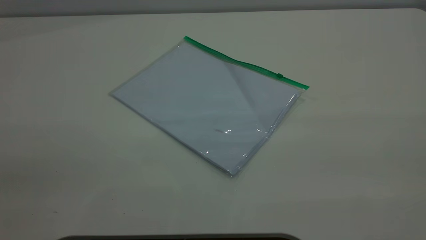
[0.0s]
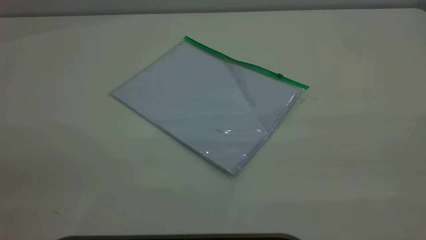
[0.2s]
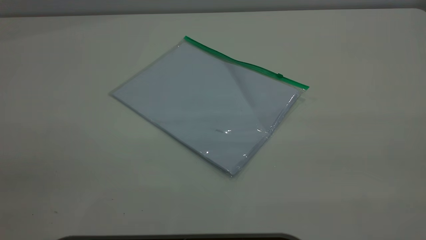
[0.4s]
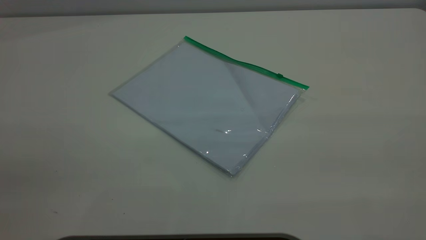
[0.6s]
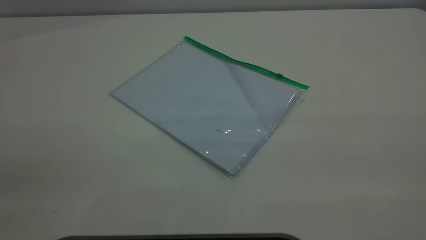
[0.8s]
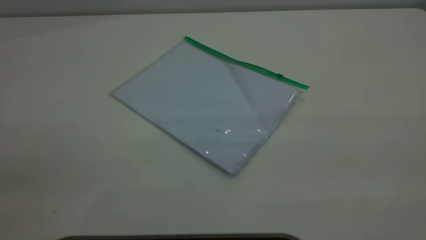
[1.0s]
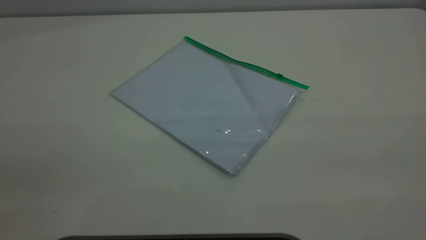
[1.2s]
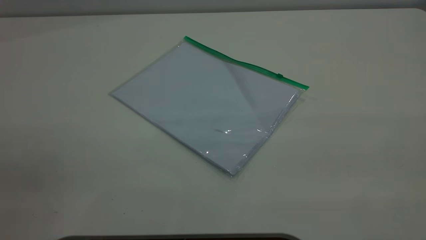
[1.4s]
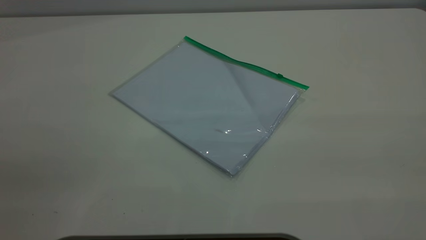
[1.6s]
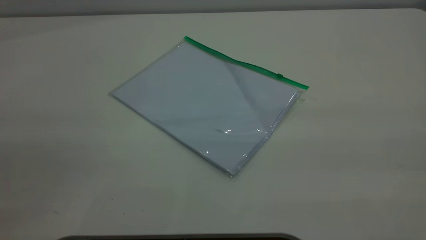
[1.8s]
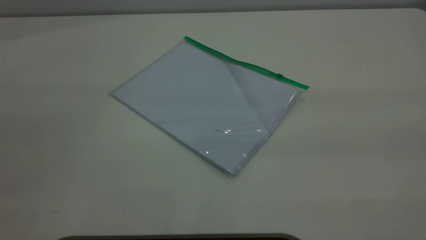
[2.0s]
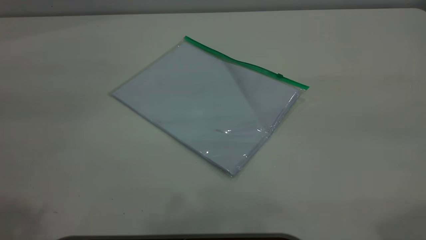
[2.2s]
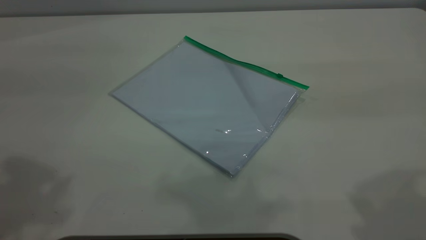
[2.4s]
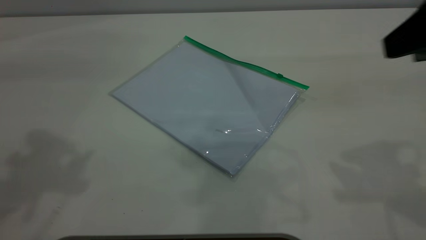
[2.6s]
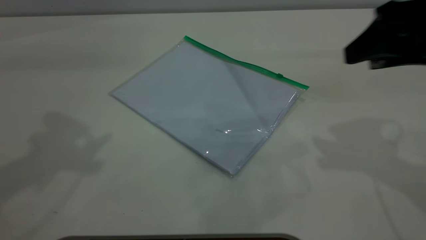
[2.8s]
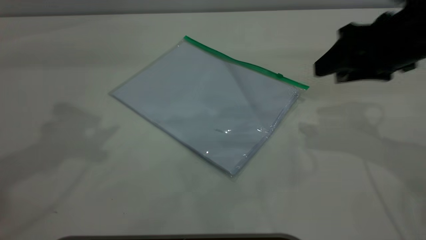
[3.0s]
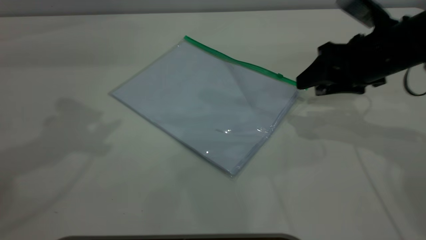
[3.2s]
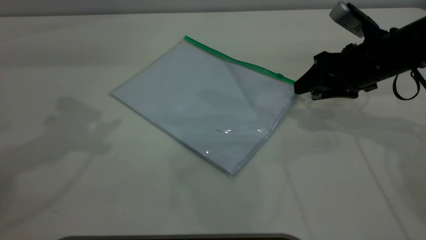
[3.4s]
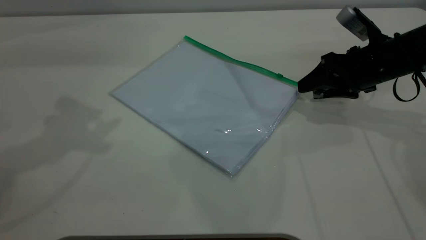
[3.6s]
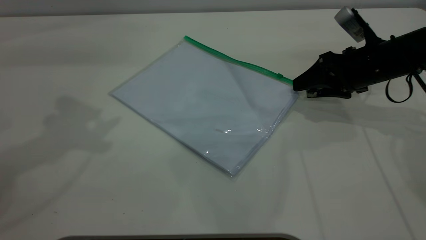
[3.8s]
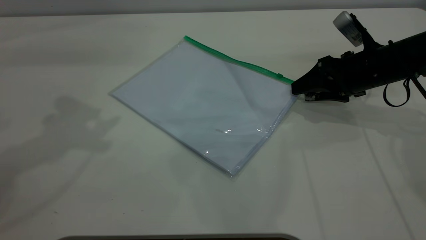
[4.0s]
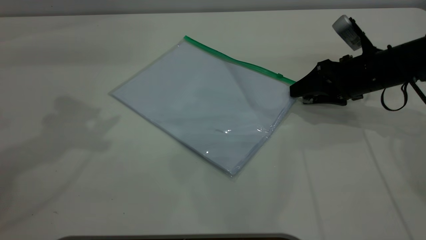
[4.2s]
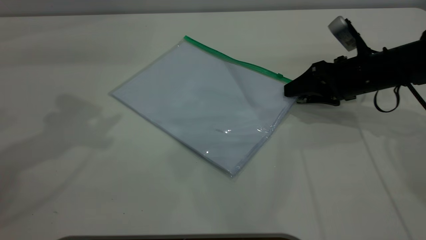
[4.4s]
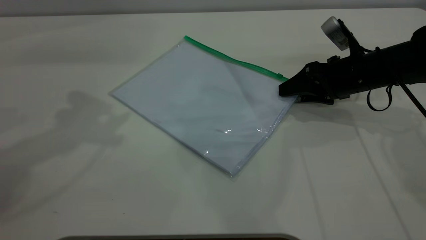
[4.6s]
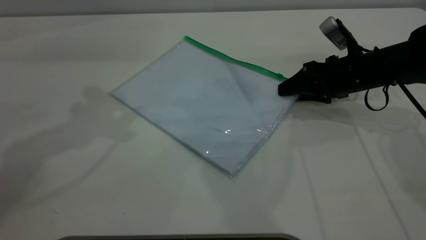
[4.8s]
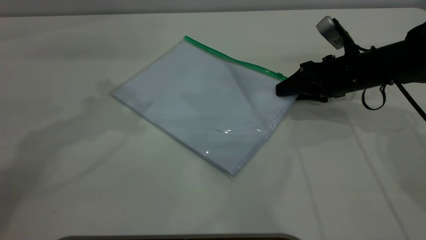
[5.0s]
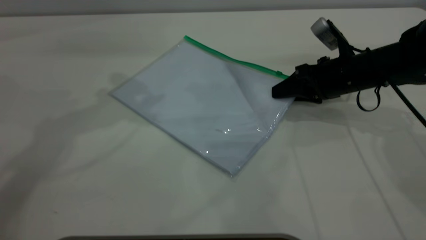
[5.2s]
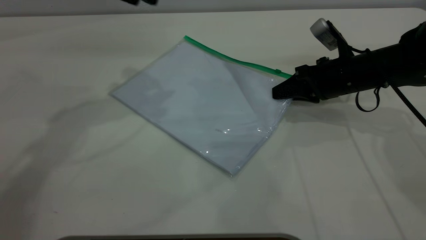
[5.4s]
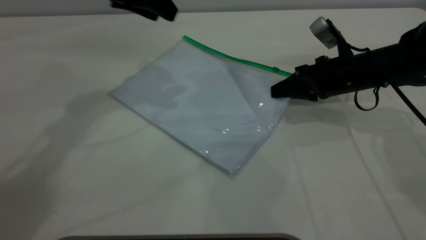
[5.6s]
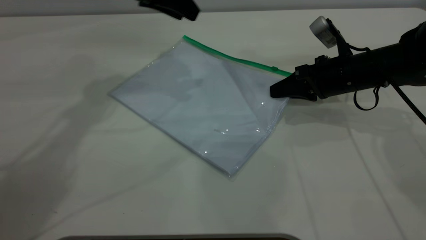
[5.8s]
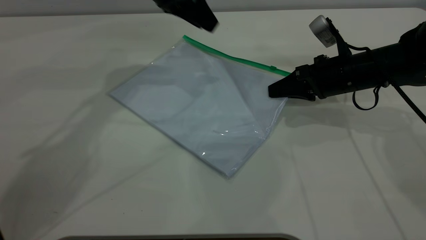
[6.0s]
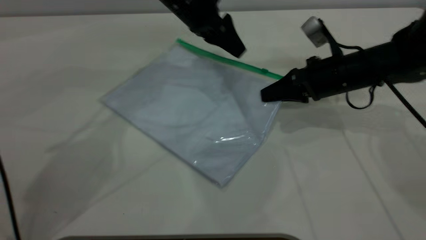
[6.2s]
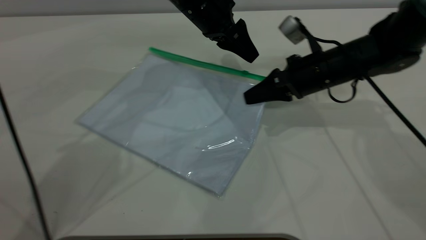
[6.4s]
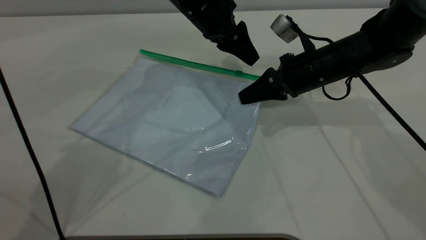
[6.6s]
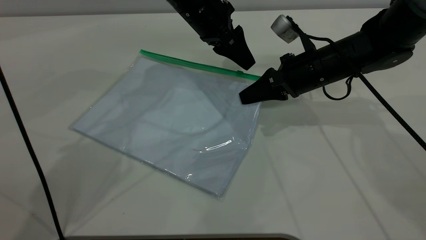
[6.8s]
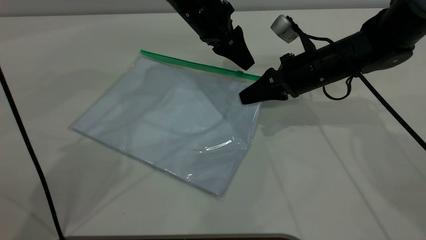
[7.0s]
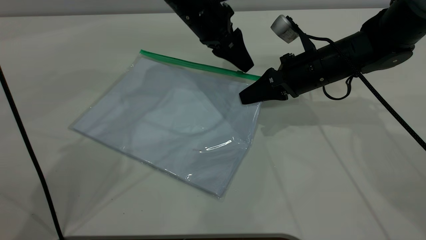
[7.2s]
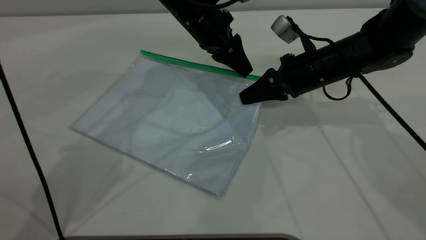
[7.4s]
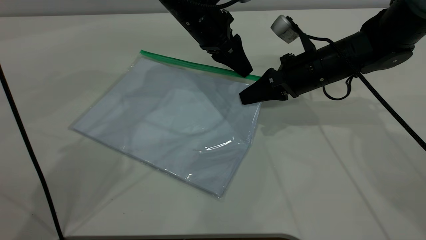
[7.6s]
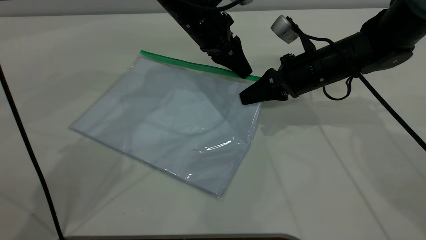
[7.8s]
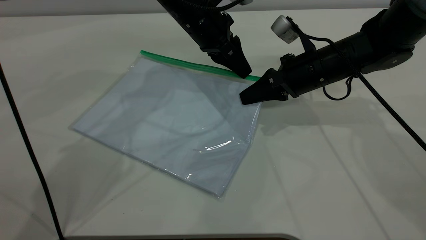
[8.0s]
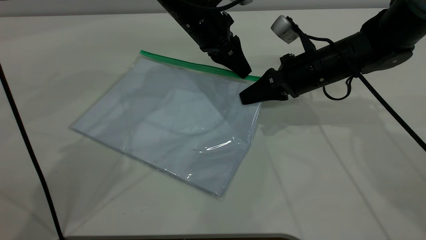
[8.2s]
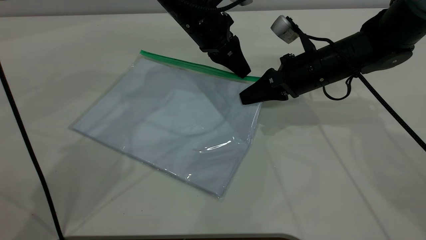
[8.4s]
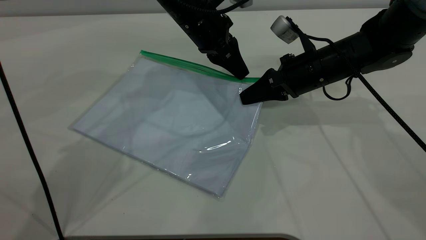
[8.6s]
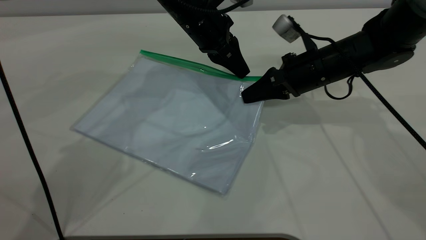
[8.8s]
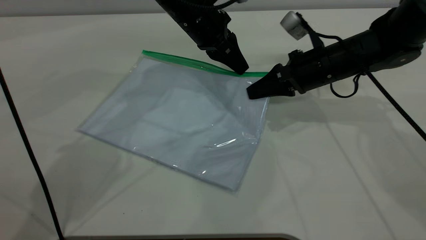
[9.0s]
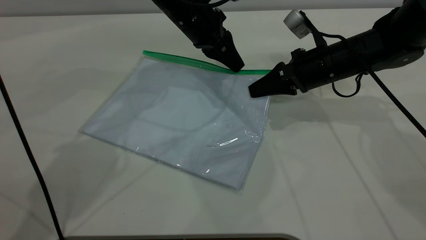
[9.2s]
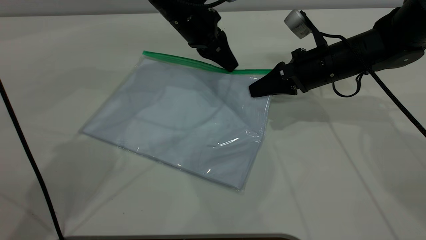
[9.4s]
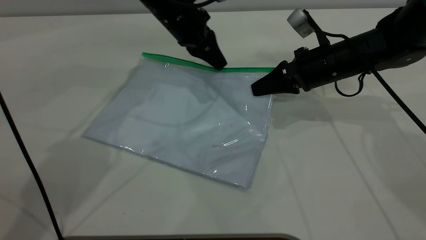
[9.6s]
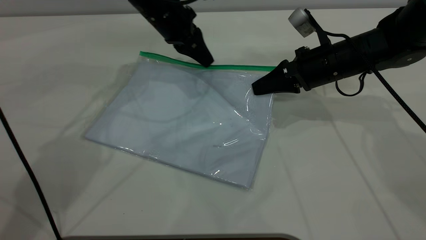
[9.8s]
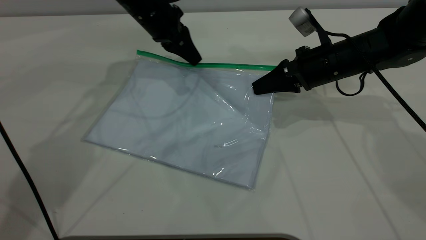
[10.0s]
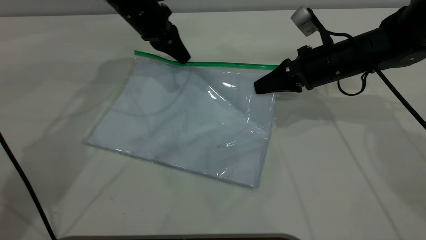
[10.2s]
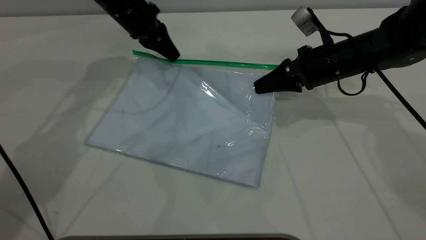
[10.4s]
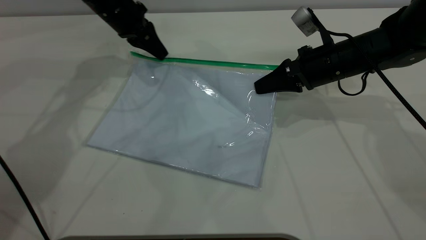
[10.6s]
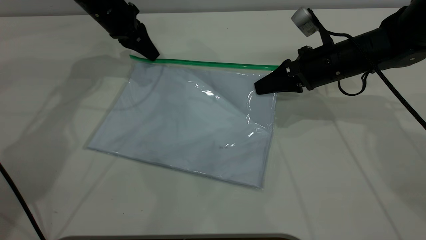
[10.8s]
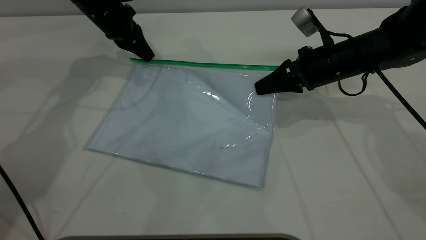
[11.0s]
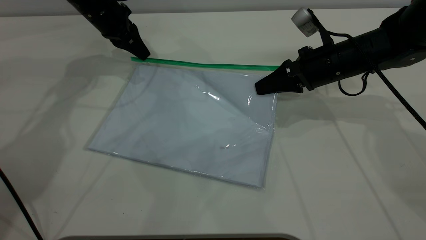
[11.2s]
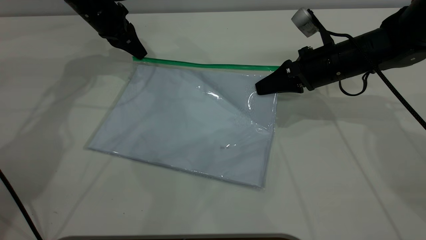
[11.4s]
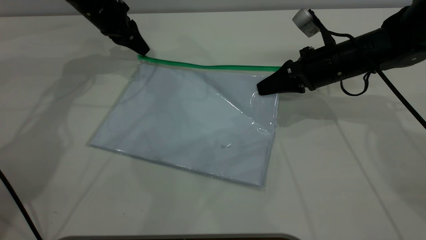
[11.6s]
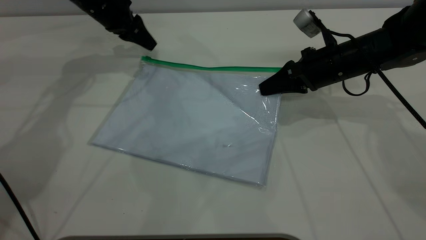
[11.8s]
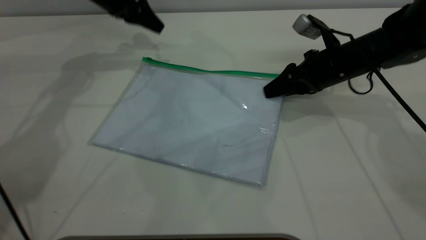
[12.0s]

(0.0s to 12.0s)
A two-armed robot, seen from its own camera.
Step, 0.0s - 5.6s: Pick up the transparent plastic bag with the right gripper.
Step, 5.8s - 11.6s: Pulling up the zipper on the transparent plastic bag with the left gripper to close it.
0.0s - 1.6s: Neither gripper changes place.
1.6s - 3.0s: The right gripper is displaced forward and downward by some 40 cm.
3.0s - 4.4s: The right gripper moves downward and forward, about 15 cm.
4.4s - 6.0s: The left gripper heads to the right, forward and downward, covering roughly 25 cm; the right gripper closes.
6.0s - 7.6s: The left gripper travels to the right by roughly 5 cm. The right gripper changes place by approximately 5 cm.
7.6s - 9.0s: The left gripper closes its fingers.
9.0s - 10.4s: The left gripper goes approximately 15 cm to the left.
10.4s - 12.0s: The left gripper moves some 5 cm, and opens; the right gripper opens.

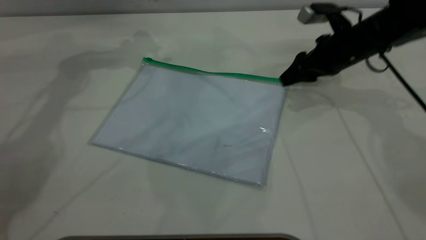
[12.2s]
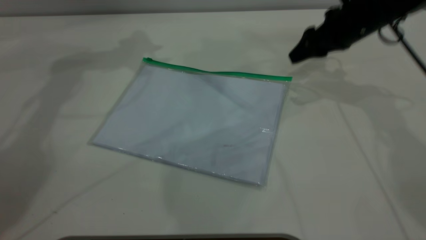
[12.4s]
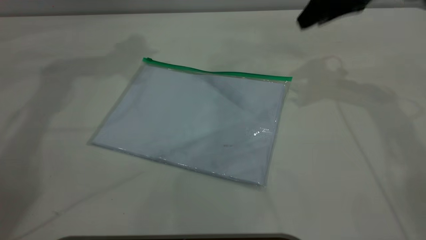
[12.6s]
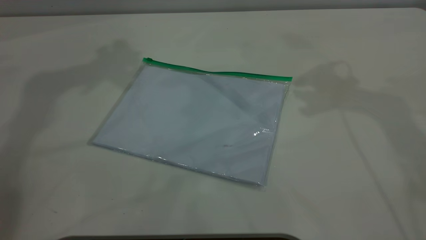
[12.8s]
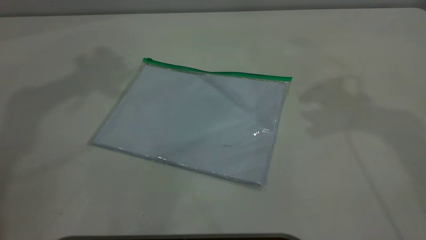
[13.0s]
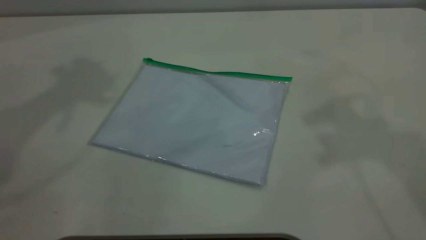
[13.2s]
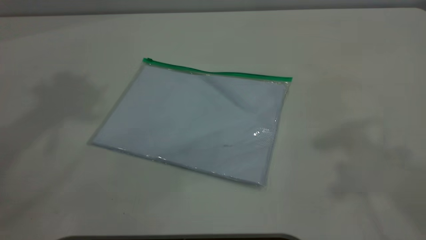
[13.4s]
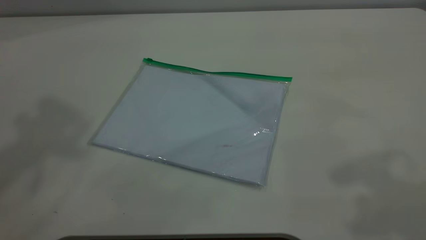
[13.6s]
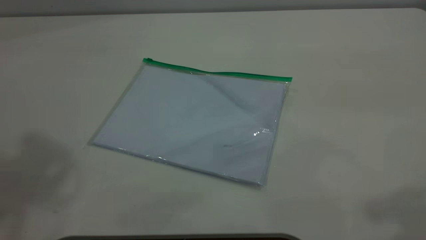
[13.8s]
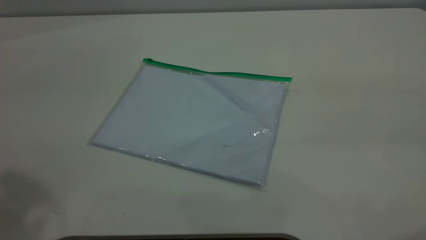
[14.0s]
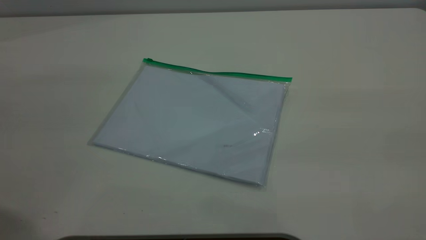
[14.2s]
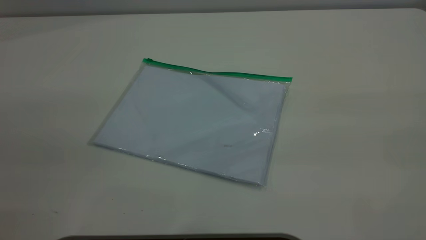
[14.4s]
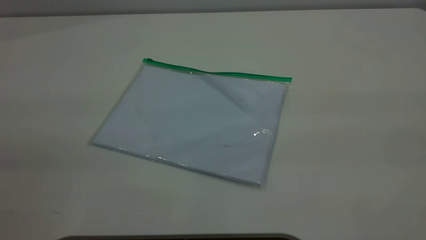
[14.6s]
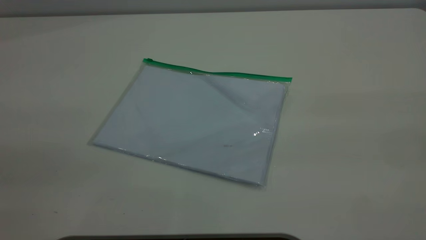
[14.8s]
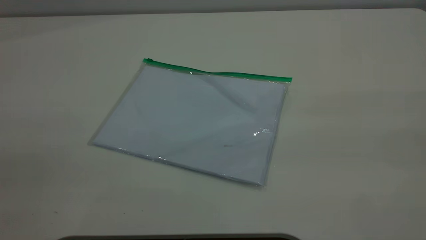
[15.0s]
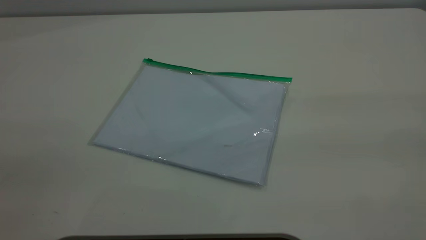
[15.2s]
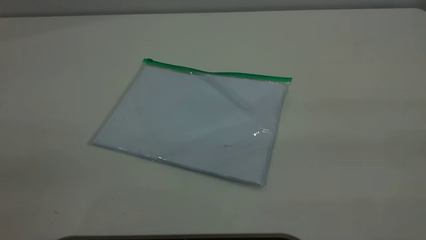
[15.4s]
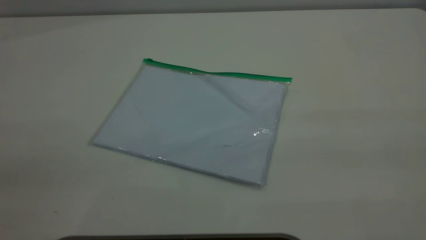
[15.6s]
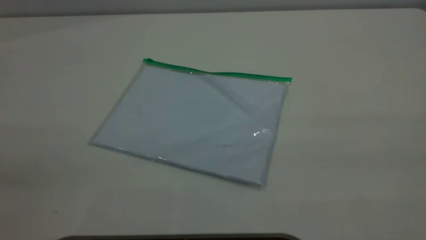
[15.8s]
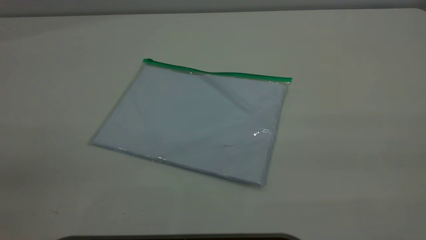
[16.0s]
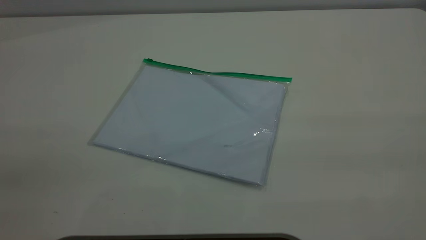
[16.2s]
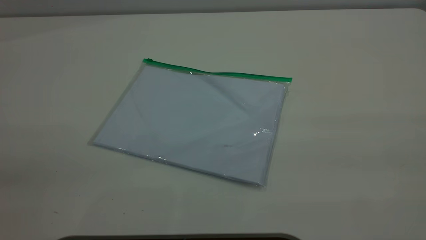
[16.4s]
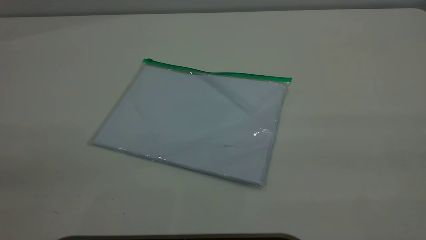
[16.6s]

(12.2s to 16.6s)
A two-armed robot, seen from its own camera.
12.2s - 13.6s: The two grippers go about 40 cm upward and backward.
